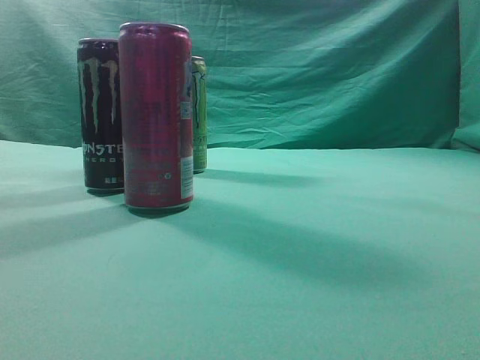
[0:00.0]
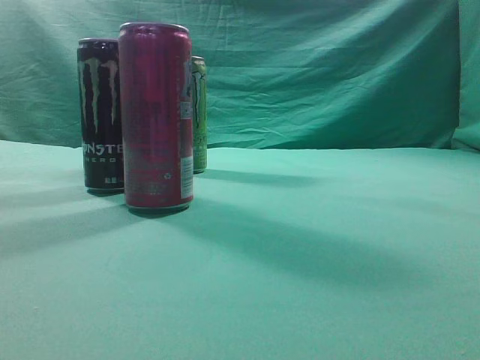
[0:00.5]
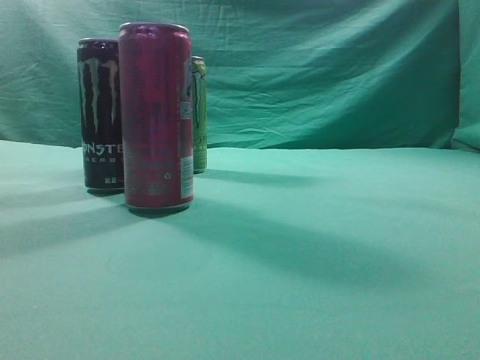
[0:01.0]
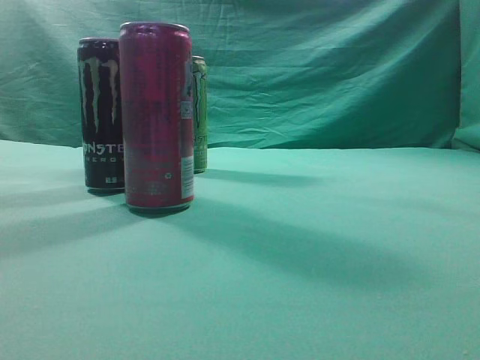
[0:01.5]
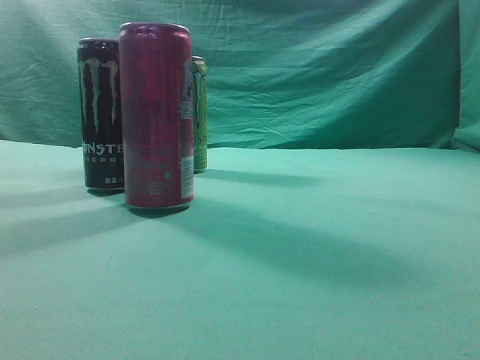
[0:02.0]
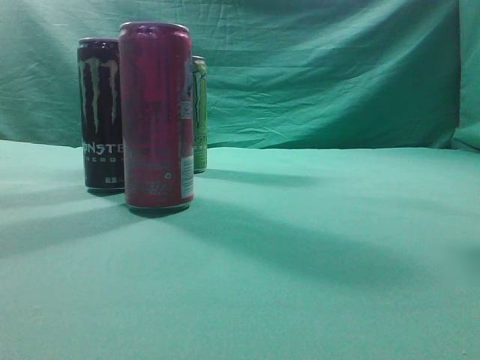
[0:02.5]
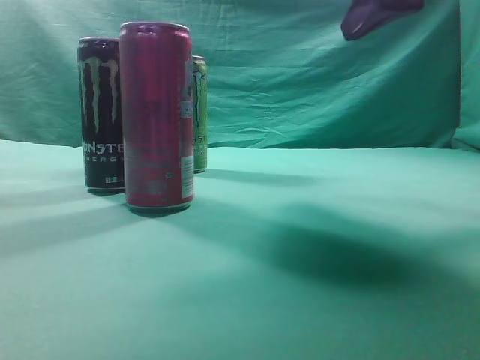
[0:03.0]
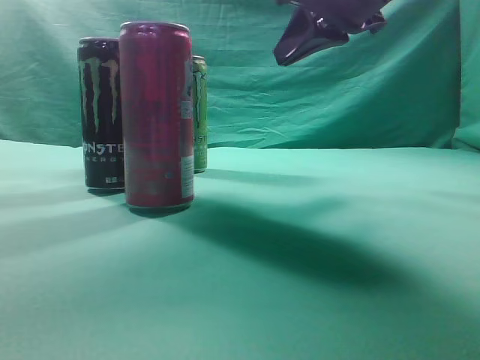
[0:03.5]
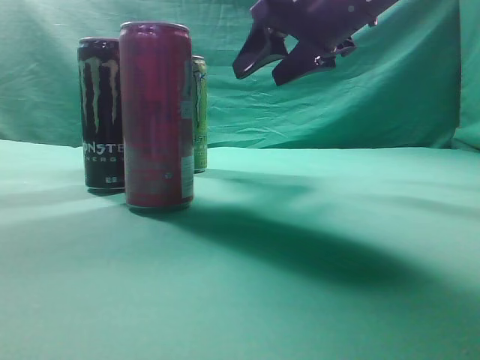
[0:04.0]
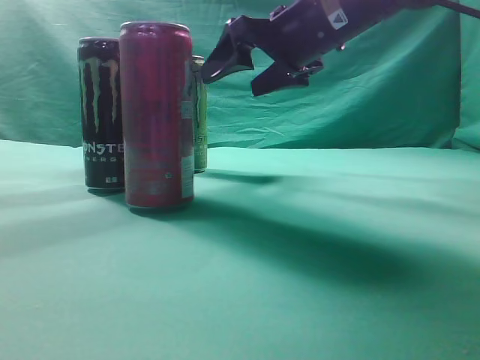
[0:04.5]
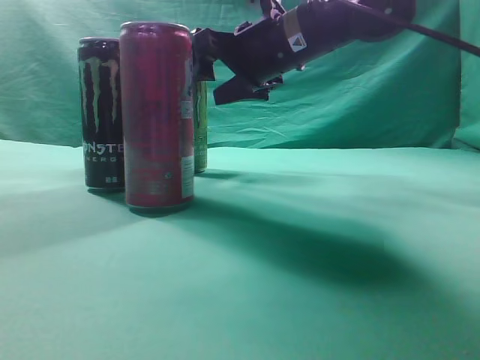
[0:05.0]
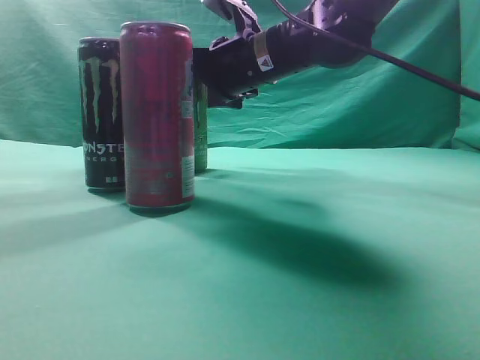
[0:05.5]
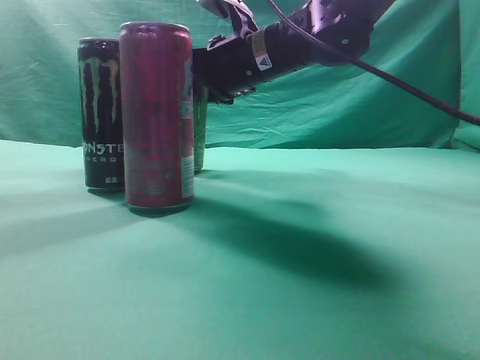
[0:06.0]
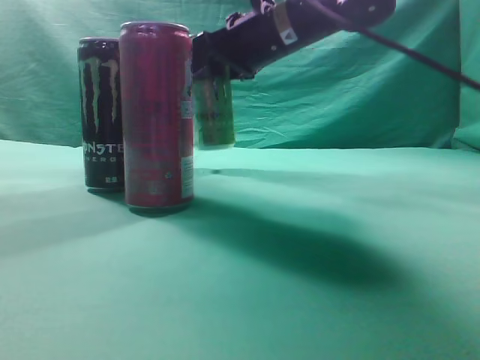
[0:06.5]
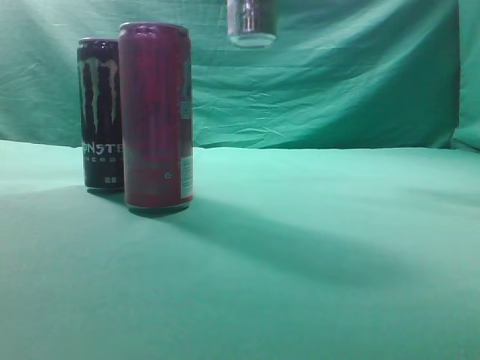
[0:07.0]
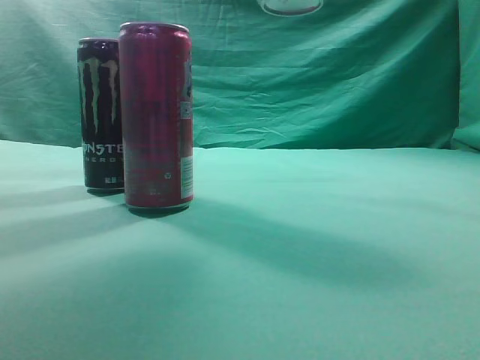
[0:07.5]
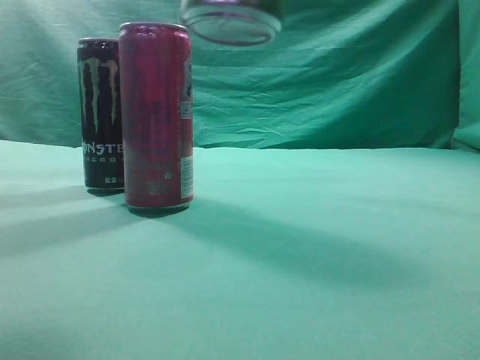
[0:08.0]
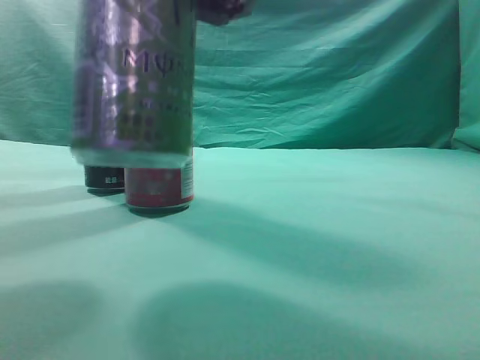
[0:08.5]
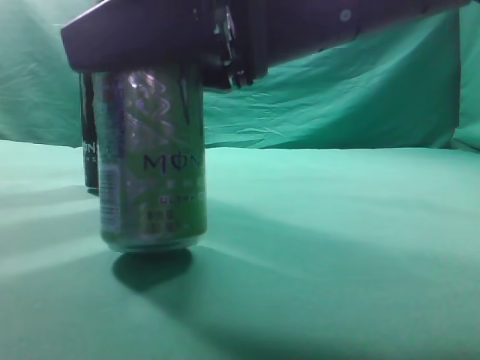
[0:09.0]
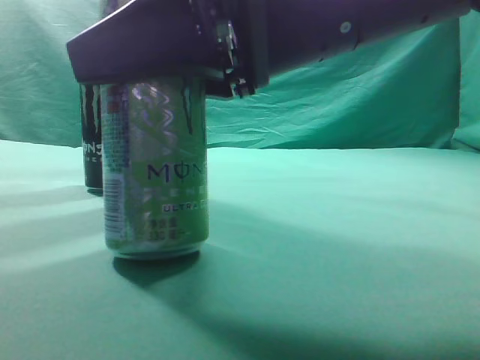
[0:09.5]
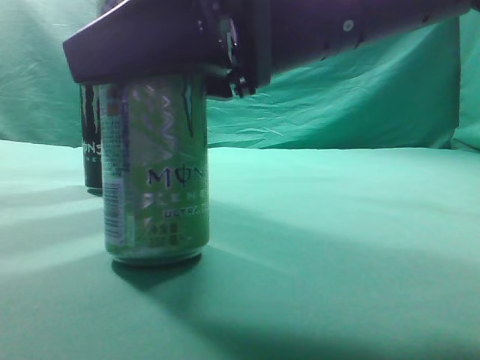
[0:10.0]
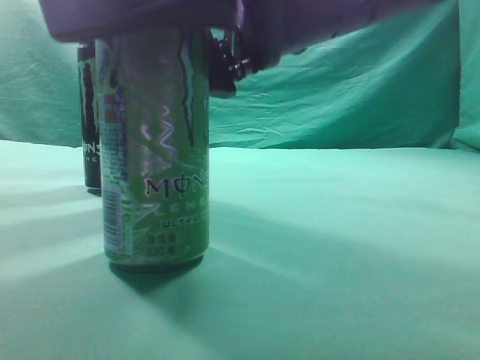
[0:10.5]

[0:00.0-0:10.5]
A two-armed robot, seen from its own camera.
Task of the whole recording: move one drink among three beverages.
Step, 0:00.0 to 0:06.5: Grasp the beverage bottle placed at the back of the desk.
0:02.0 to 0:04.0: The right gripper travels forward and to the left by about 30 cm, and opens its fingers.
0:04.0 to 0:06.5: The right gripper moves forward and to the left, roughly 10 cm.
0:06.5 to 0:08.5: The right gripper travels backward by roughly 25 cm.

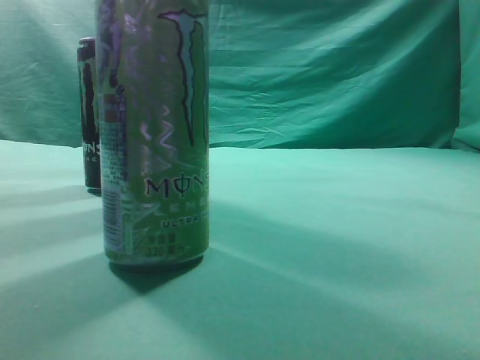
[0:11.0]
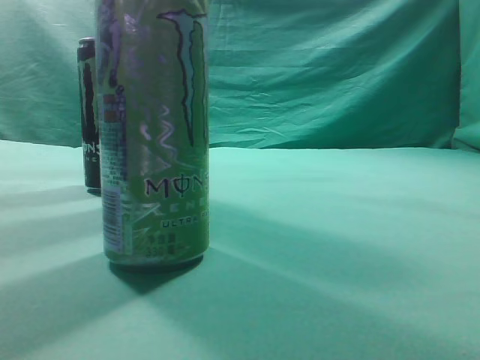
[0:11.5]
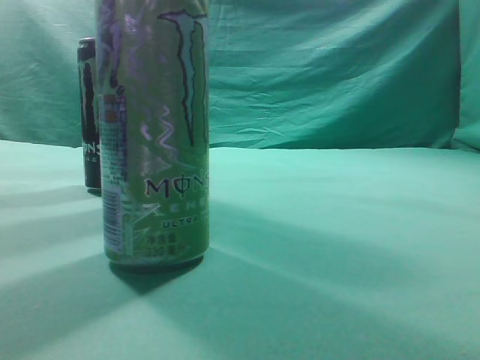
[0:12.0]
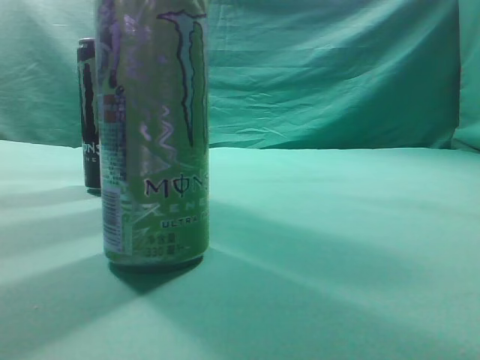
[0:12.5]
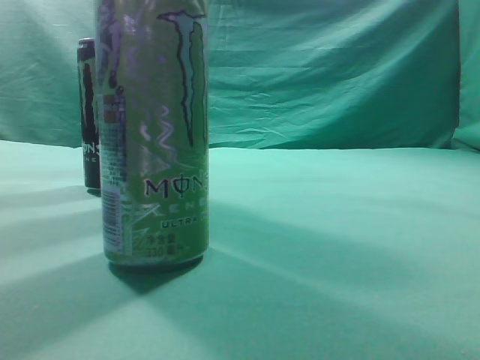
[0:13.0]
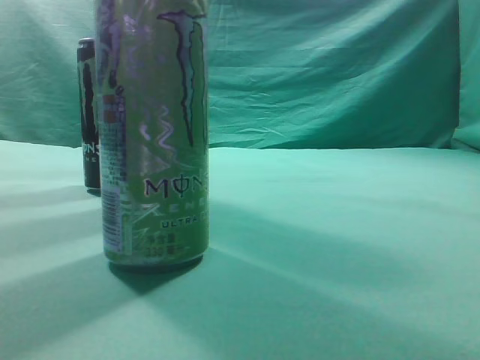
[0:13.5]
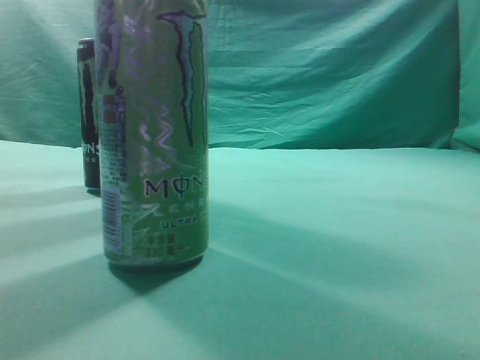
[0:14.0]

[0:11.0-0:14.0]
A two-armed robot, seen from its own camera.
Task of the whole recording: move one drink among three beverages.
0:11.0 to 0:12.5: The right gripper travels to the right, upward and backward by roughly 25 cm, and closes up.
